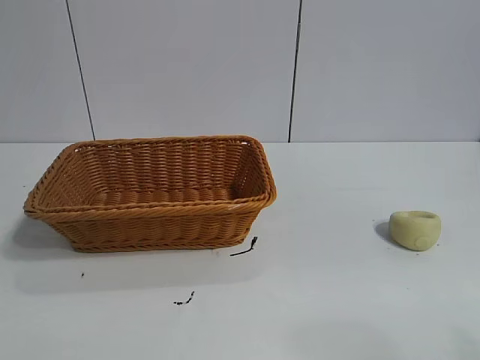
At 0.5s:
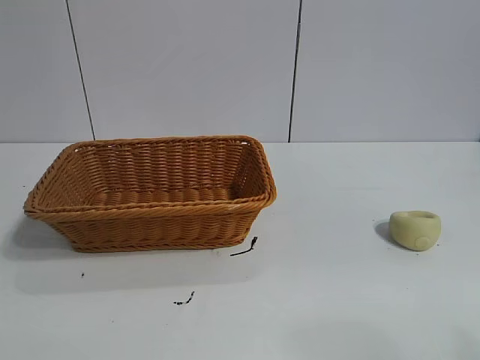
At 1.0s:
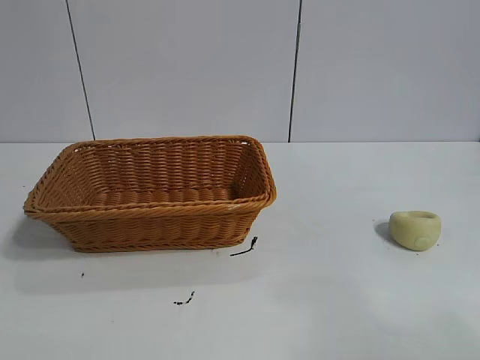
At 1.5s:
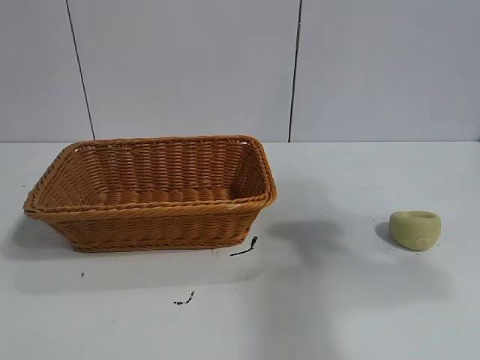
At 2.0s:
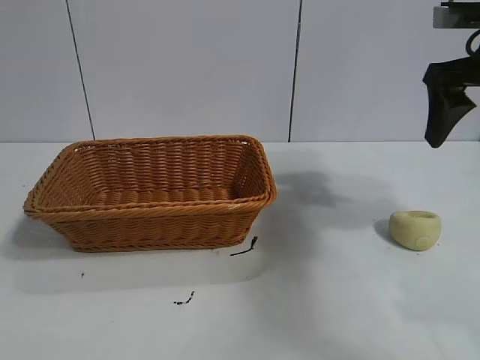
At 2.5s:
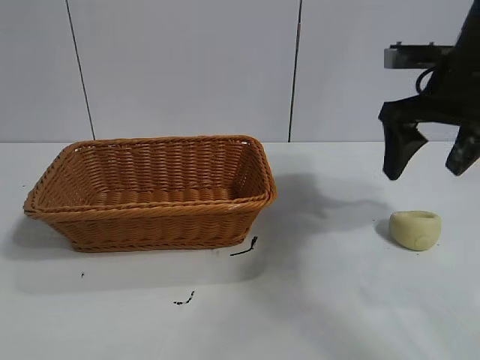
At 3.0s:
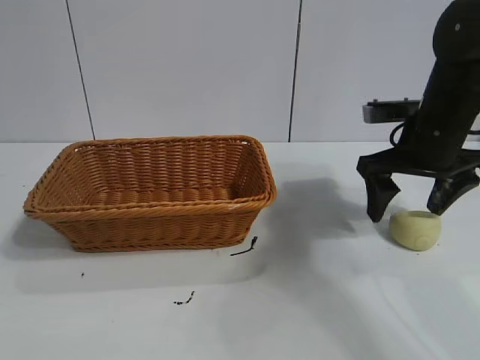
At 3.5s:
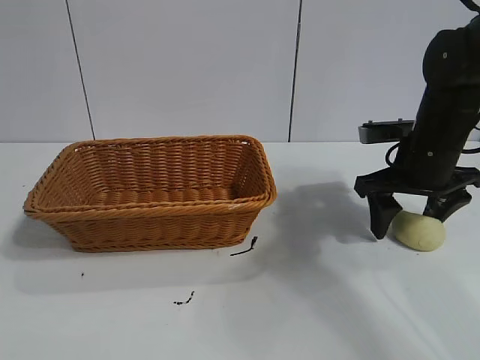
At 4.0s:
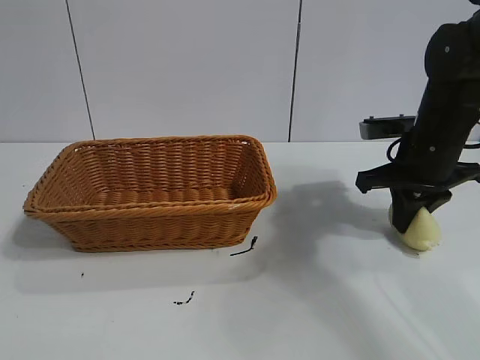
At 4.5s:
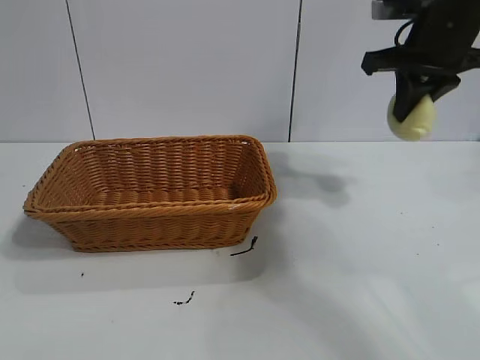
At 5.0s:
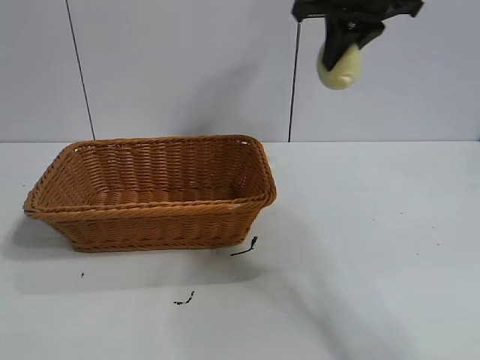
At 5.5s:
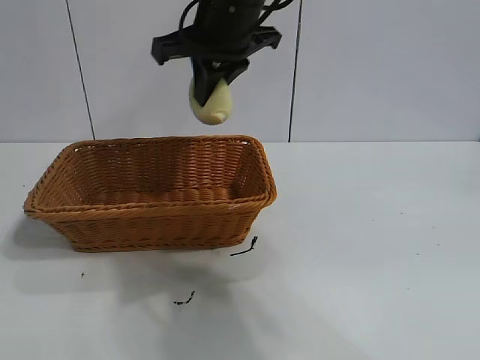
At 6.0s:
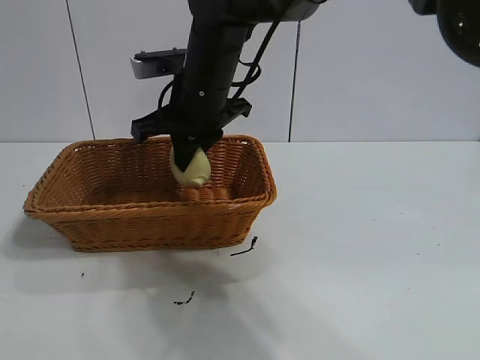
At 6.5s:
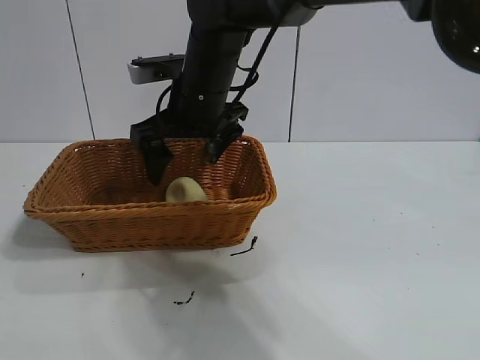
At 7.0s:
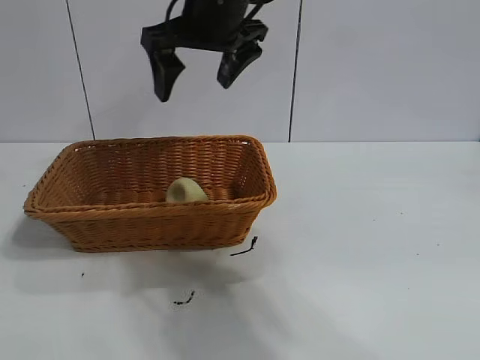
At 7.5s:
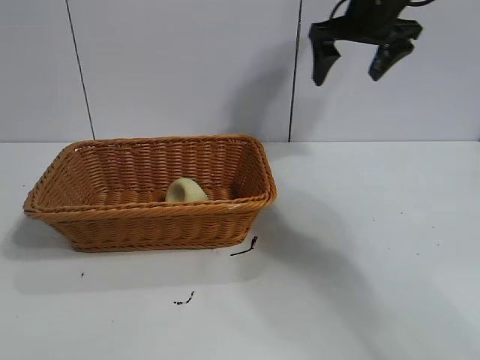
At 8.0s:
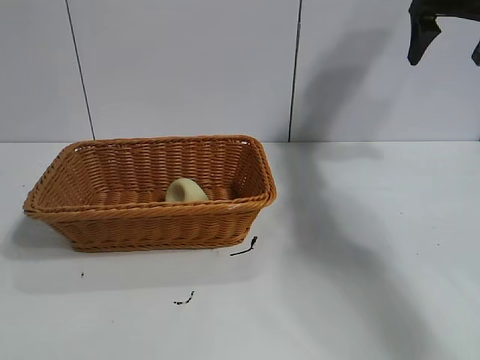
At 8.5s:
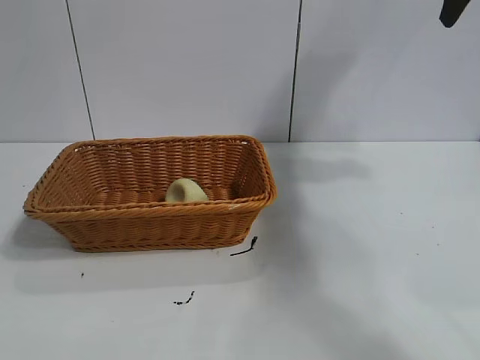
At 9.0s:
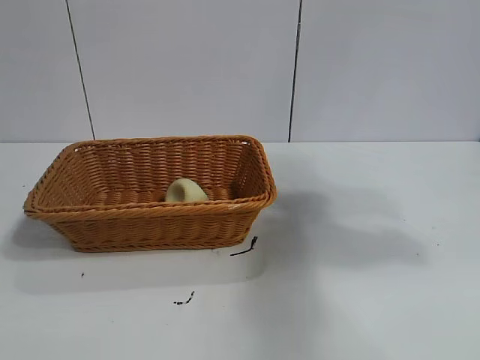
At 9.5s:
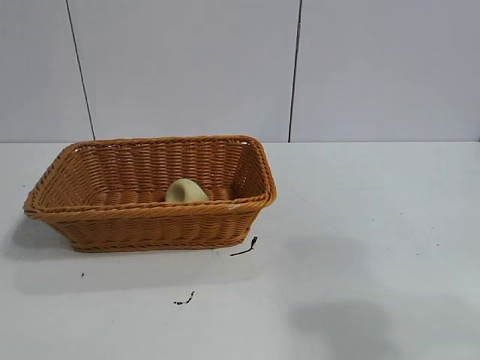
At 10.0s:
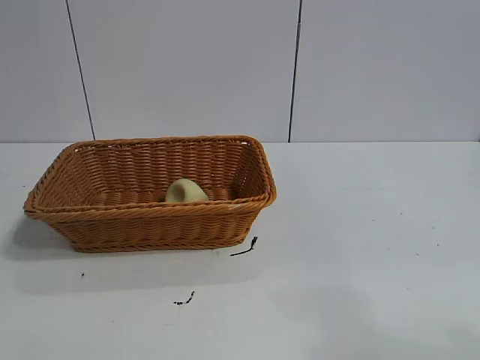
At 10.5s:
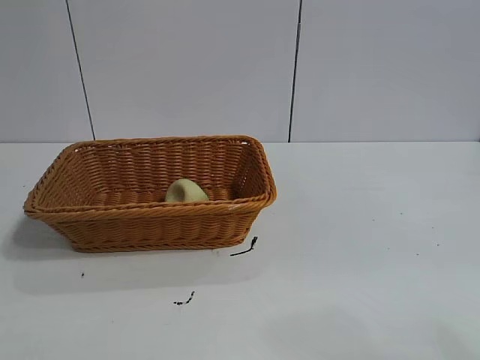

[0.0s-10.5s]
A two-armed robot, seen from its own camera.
Task of the whole recording: pick up the egg yolk pastry and put it into the basket.
Step, 1.0s to 3.5s: Grasp egg yolk pastry with right gripper.
Step, 4.0s to 6.0s: Place the egg yolk pastry in the basket with right gripper.

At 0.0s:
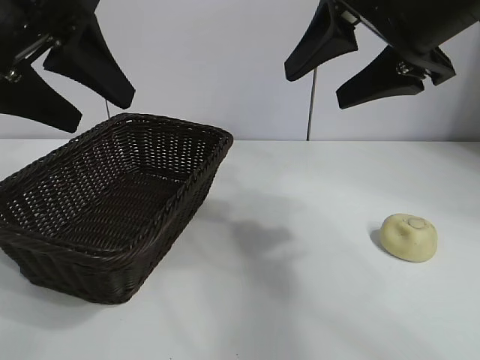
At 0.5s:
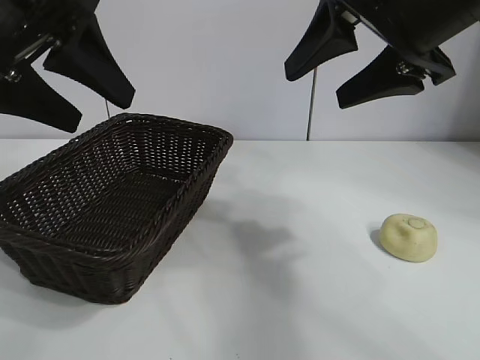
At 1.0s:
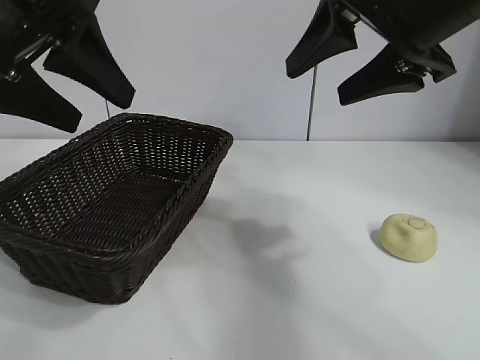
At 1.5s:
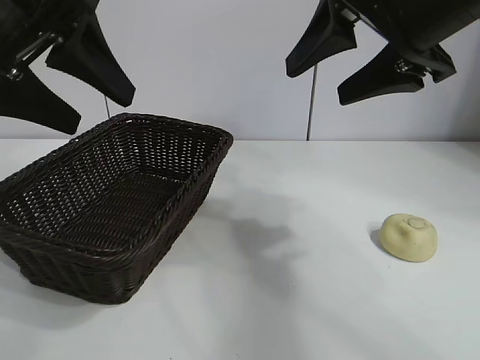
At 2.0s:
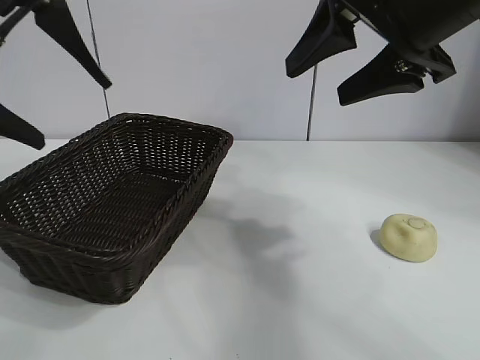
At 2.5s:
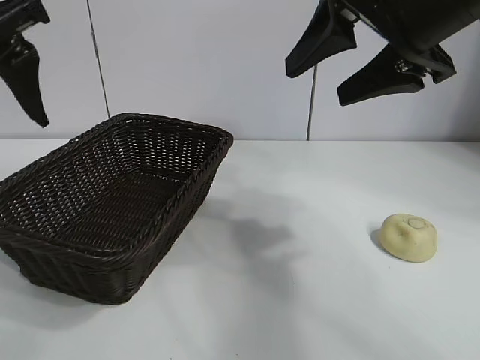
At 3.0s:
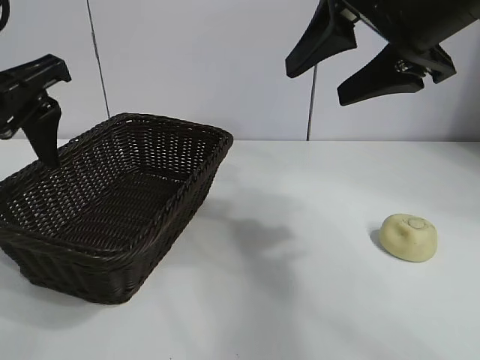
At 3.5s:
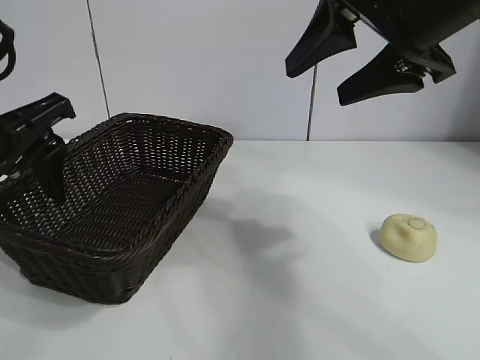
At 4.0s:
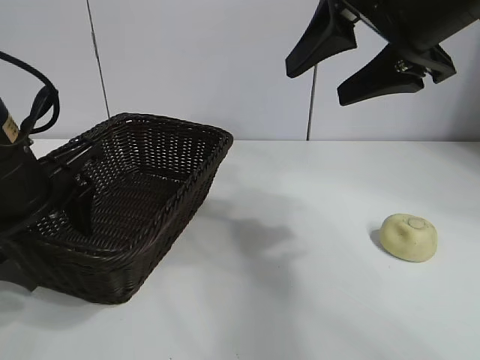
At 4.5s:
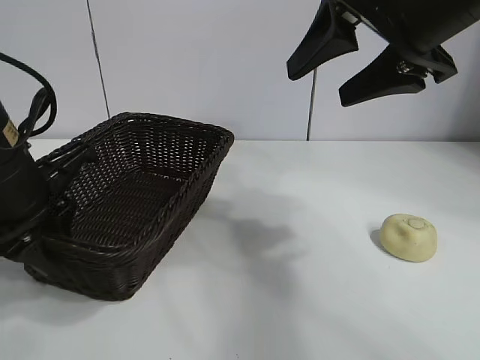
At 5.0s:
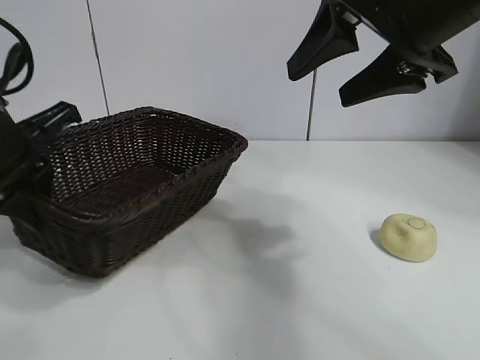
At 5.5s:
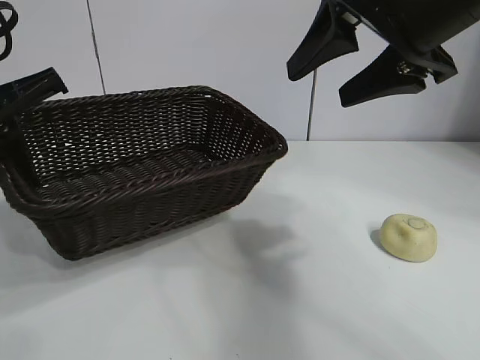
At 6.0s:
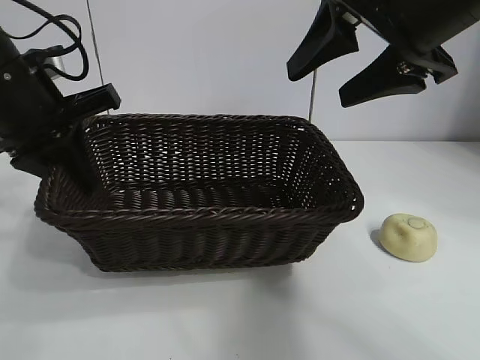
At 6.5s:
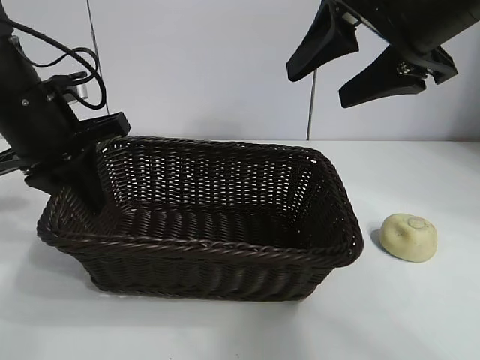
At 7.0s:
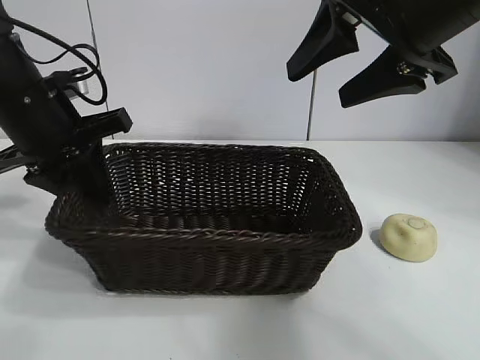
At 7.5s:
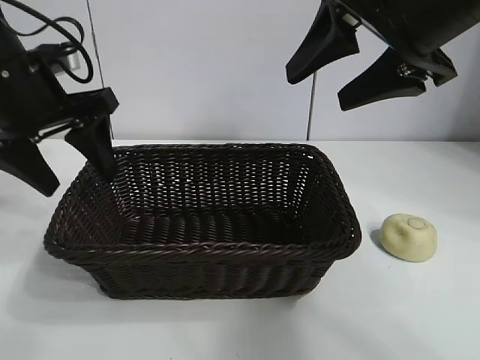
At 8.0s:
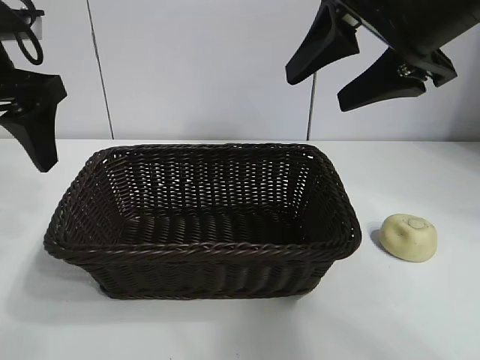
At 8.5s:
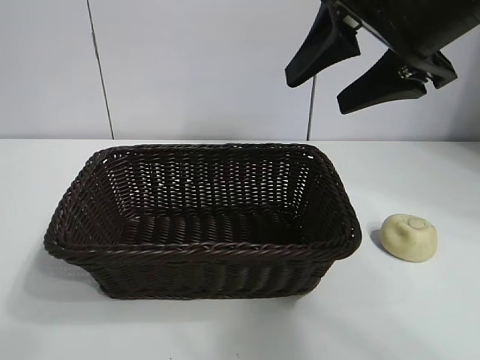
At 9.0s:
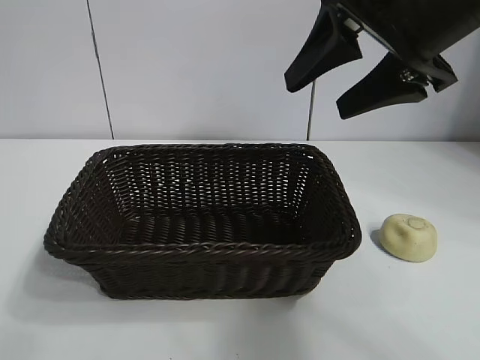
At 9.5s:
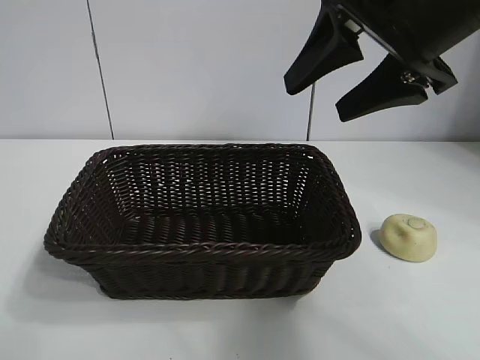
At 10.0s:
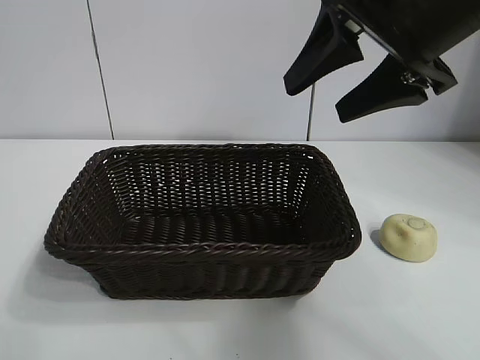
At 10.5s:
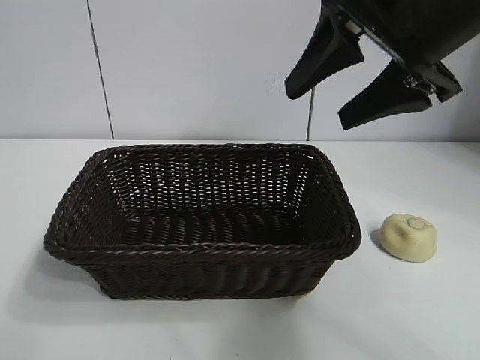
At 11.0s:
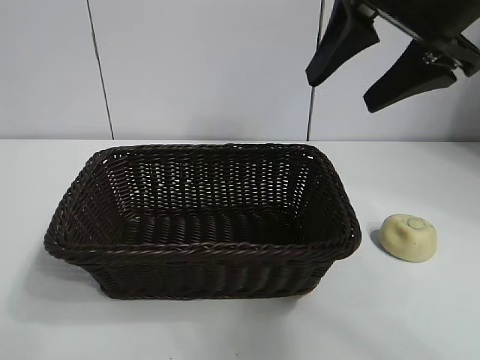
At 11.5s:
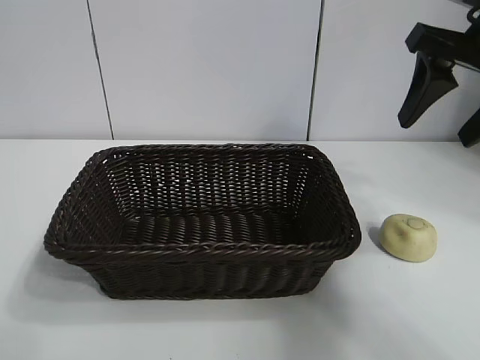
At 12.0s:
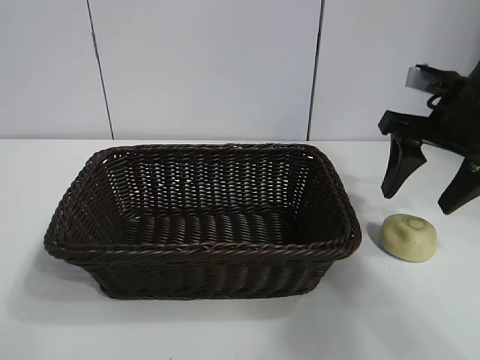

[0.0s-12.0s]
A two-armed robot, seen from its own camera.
Task of the whole recording: pick up the egg yolk pastry and put it into the basket.
Step, 1.0s to 4.5s: Grasp the basket with left gripper.
Step, 5.0s to 7.5s: Place the basket in the center of view with left gripper.

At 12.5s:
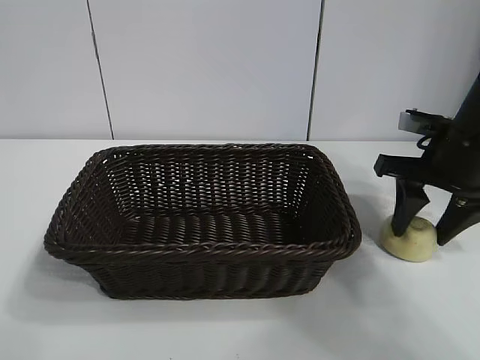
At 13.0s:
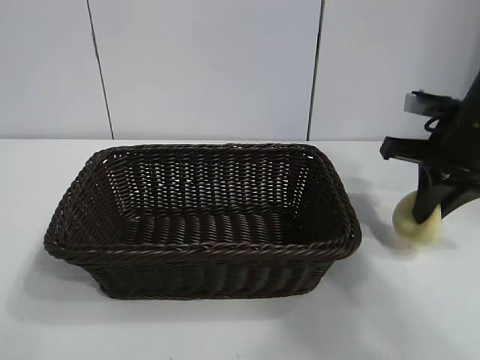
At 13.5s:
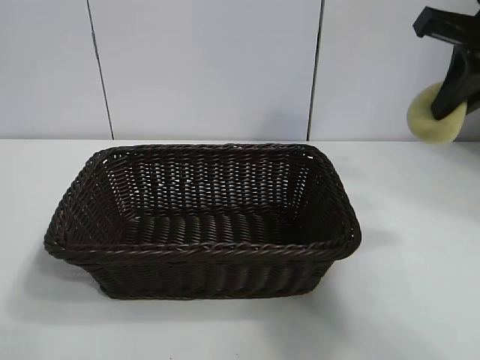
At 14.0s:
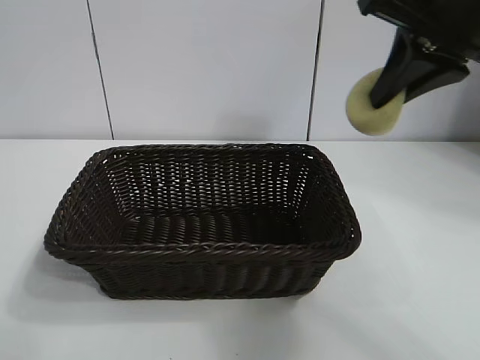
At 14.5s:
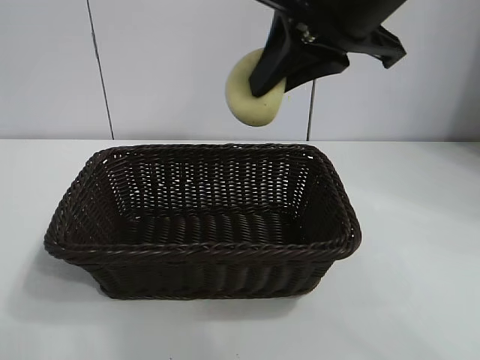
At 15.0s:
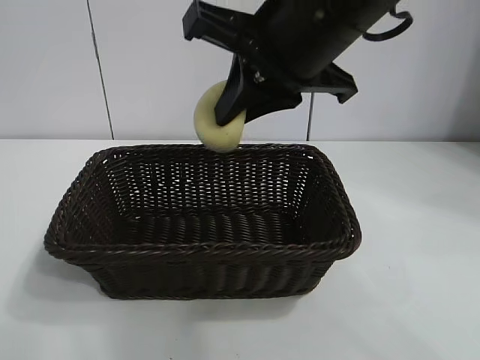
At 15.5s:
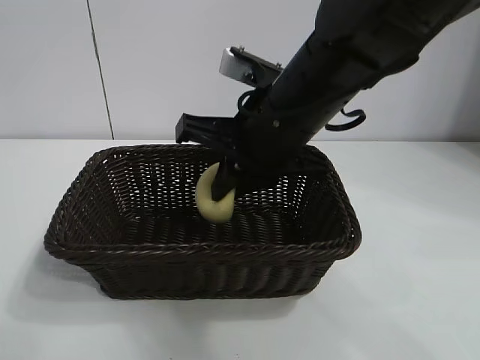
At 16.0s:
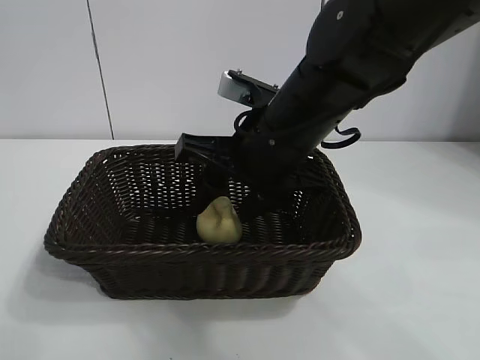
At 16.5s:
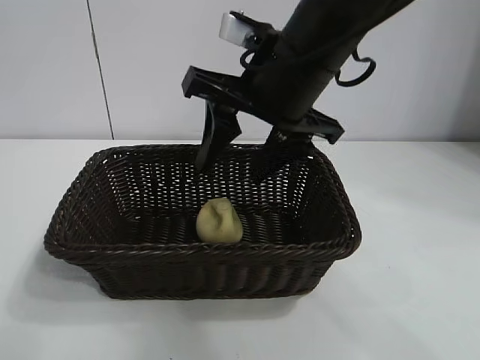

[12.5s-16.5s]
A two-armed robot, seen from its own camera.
Task of the whole recording: pick up the egg yolk pastry and put it into the basket.
Step, 13.0s to 16.0s: Place the egg yolk pastry in the basket with right gripper.
